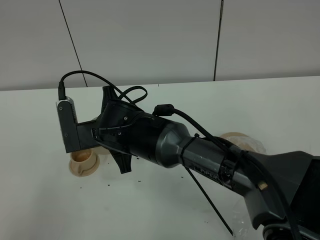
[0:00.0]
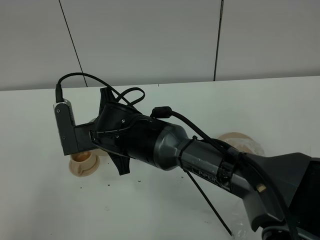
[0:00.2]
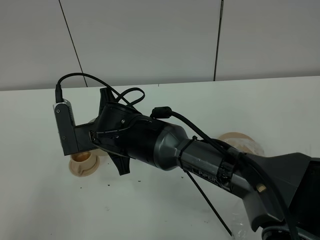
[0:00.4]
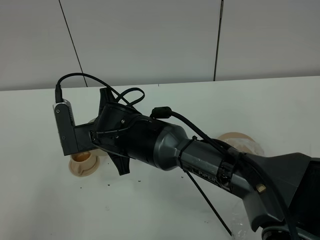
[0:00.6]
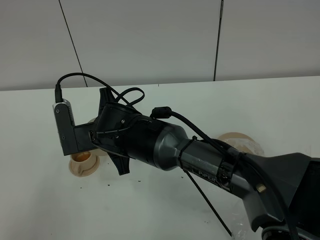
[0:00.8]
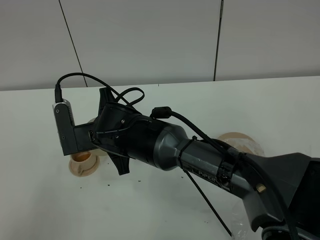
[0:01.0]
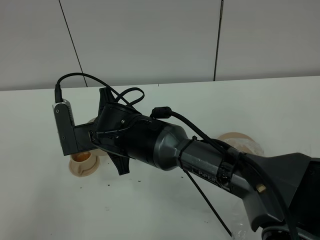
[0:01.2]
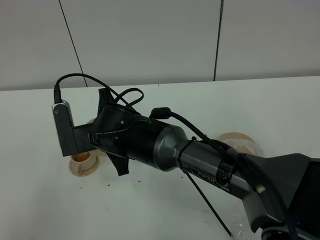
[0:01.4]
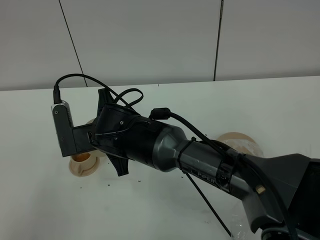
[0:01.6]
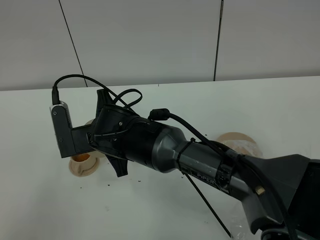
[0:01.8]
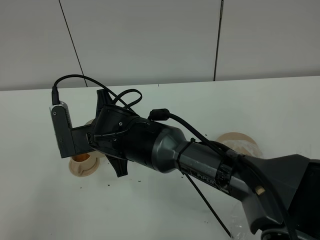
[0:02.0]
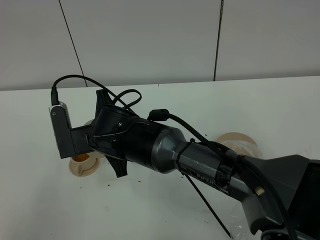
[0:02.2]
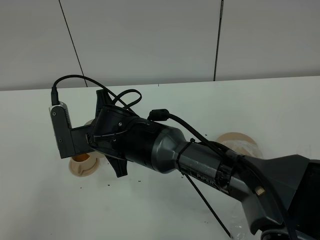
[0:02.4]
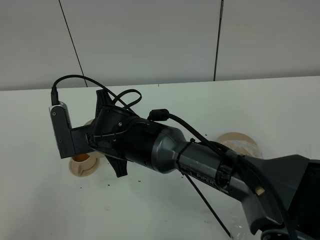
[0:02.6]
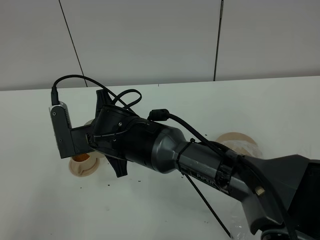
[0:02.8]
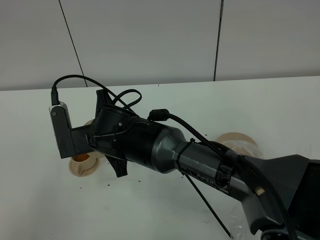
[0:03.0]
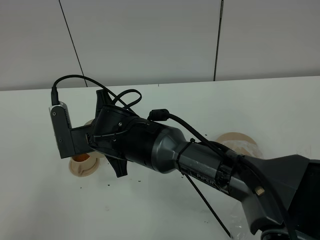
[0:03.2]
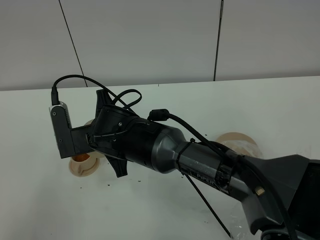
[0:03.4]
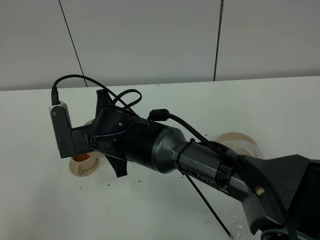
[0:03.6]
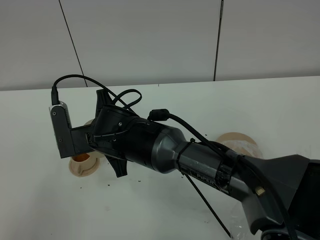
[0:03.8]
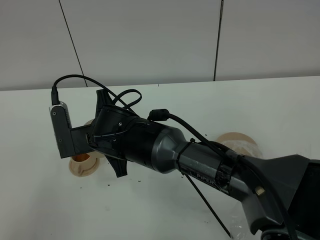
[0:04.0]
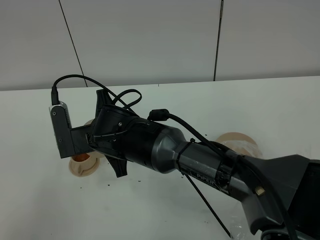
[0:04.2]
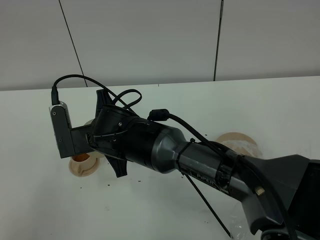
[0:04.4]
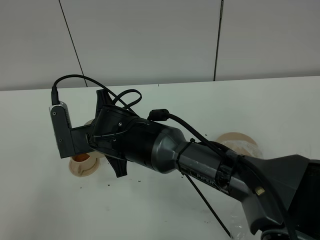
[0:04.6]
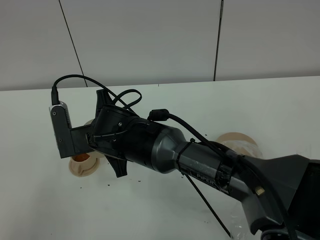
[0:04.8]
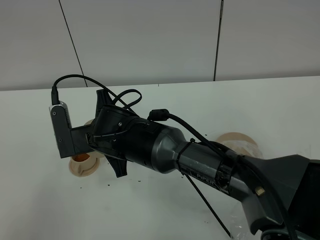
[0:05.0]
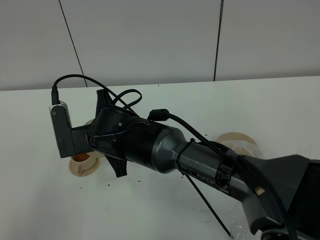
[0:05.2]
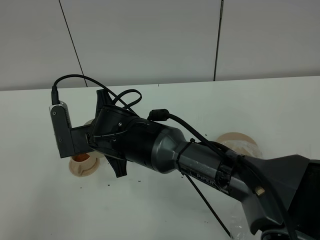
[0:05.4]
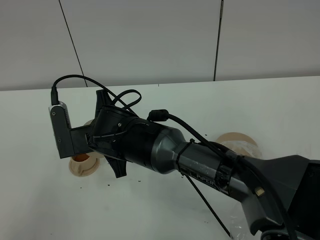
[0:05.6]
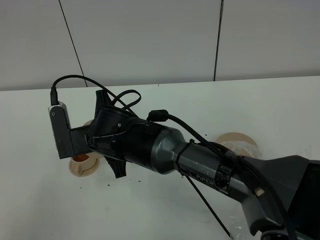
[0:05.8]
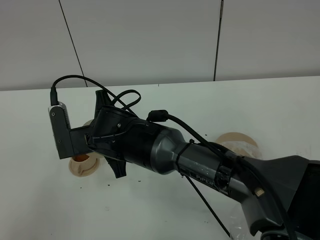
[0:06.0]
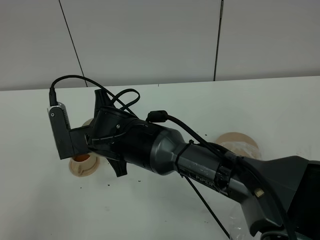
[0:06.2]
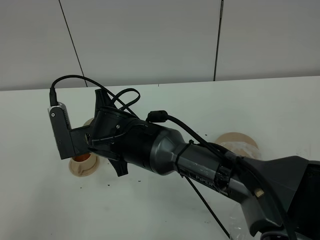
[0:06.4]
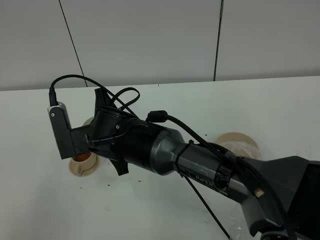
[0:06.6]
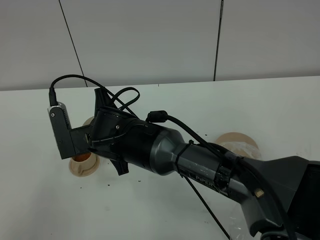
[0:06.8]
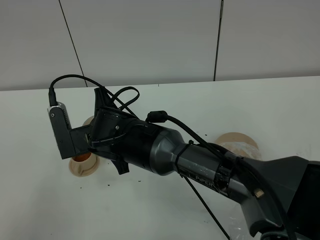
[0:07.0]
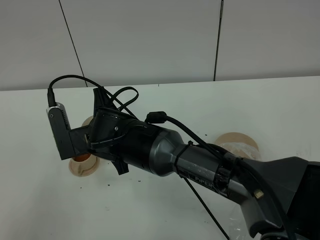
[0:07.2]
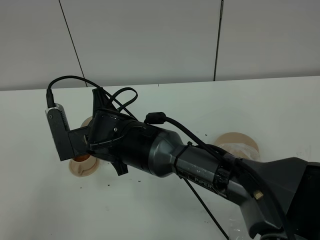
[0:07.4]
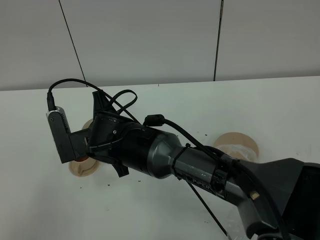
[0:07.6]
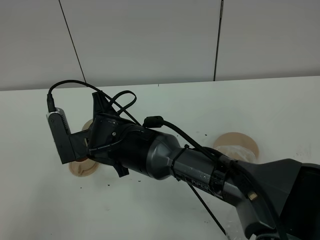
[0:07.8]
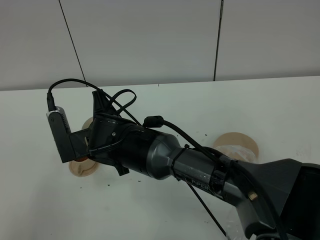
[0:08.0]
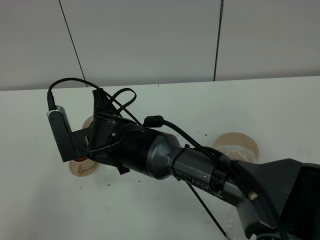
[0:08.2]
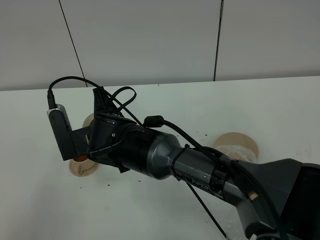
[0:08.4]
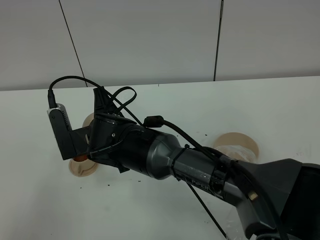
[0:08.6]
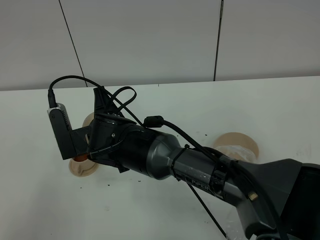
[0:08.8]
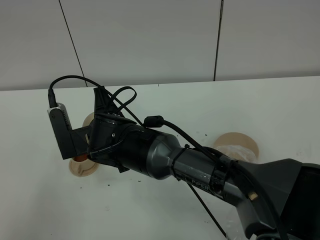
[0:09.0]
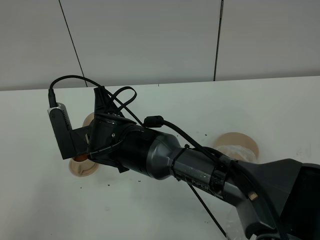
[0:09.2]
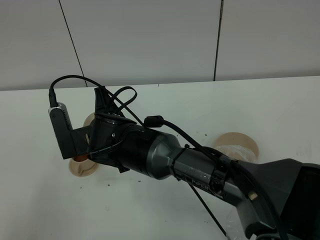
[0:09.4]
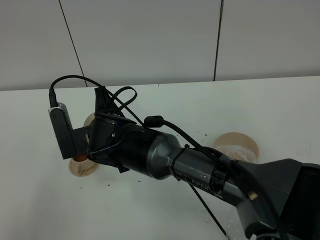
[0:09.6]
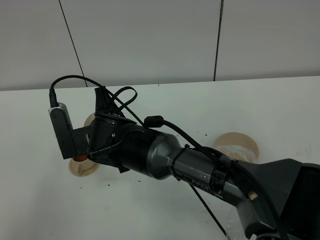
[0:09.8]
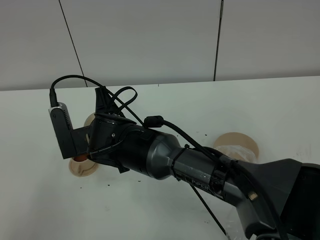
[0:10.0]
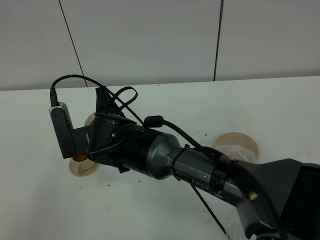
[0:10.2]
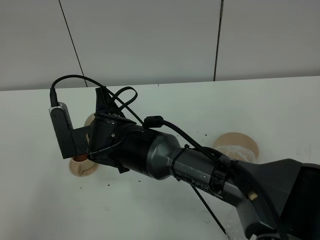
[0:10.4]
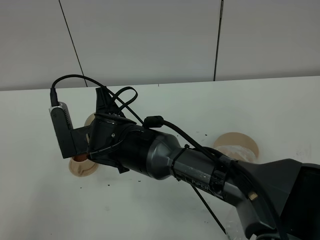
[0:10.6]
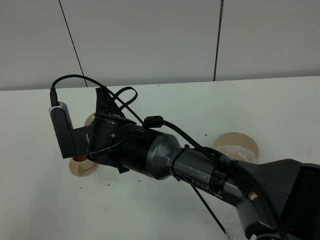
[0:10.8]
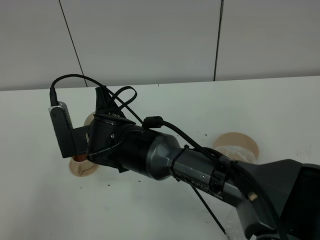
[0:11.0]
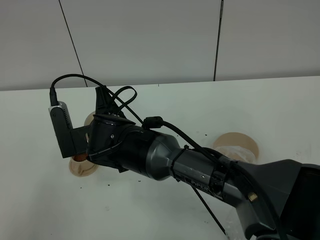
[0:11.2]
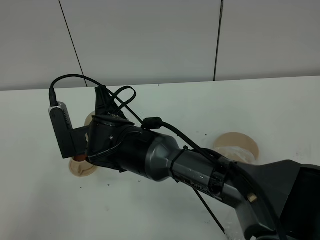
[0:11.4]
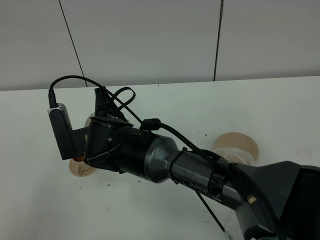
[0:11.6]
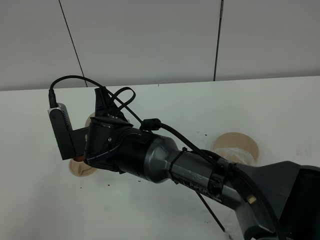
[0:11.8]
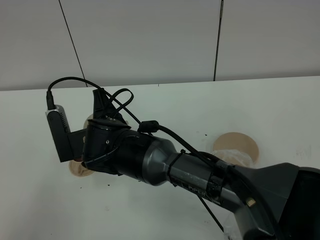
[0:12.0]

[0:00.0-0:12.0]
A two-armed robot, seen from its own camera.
Task of the whole recording: grasp the brown teapot and pour the tea into the two brown teacups one by one, put the brown teapot back in its original place.
0:00.0 to 0:06.0: Neither gripper changes place.
0:06.0 to 0:07.6: Neither gripper changes place.
0:07.6 to 0:10.4: Both grippers stay put.
0:10.4 to 0:12.0: Neither gripper changes place.

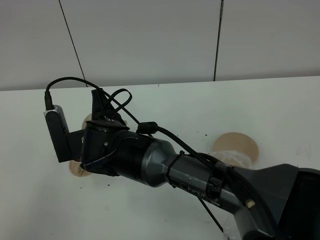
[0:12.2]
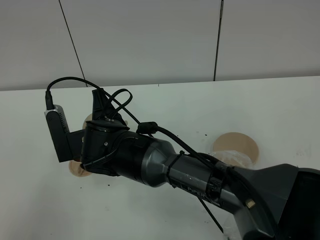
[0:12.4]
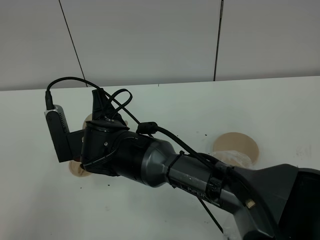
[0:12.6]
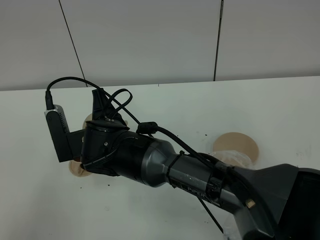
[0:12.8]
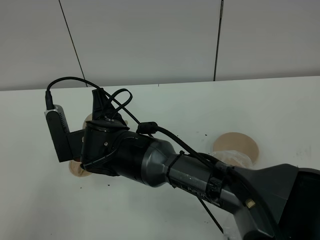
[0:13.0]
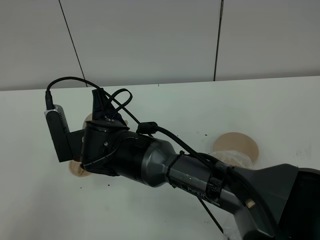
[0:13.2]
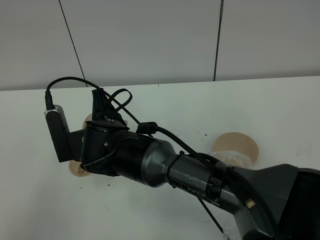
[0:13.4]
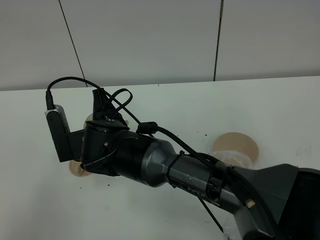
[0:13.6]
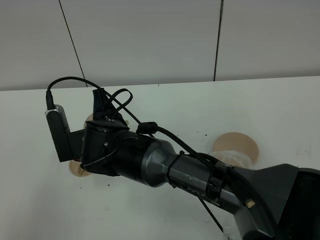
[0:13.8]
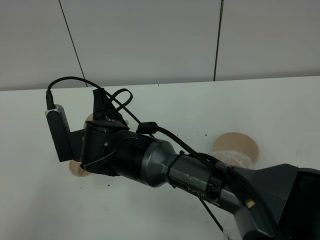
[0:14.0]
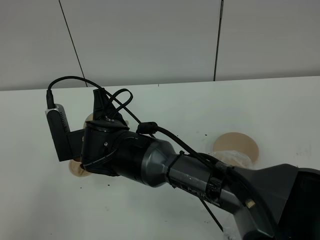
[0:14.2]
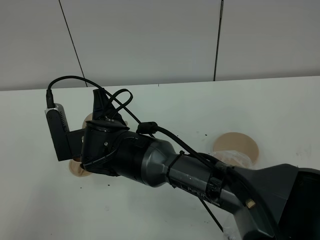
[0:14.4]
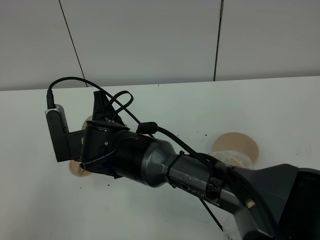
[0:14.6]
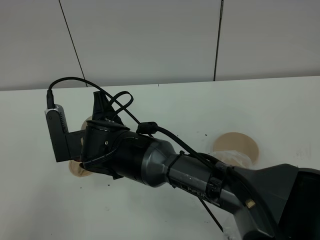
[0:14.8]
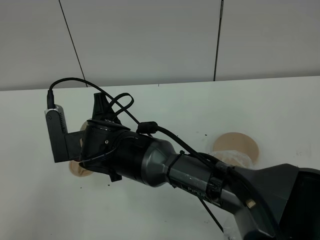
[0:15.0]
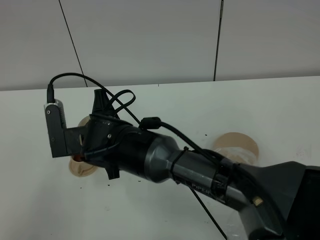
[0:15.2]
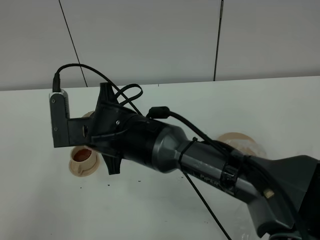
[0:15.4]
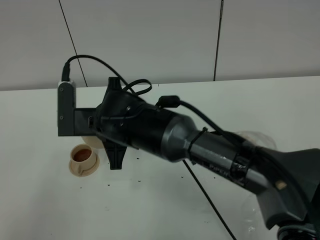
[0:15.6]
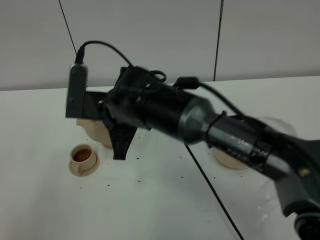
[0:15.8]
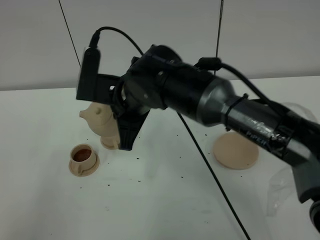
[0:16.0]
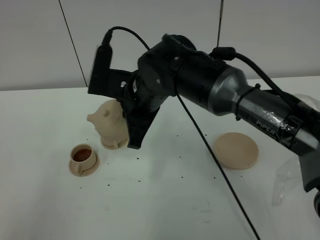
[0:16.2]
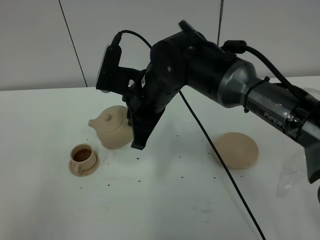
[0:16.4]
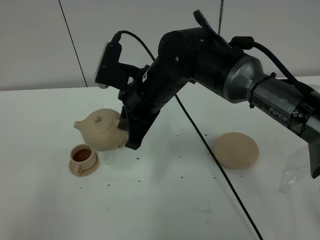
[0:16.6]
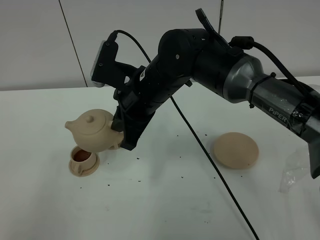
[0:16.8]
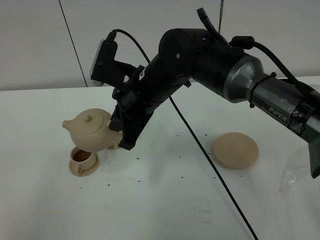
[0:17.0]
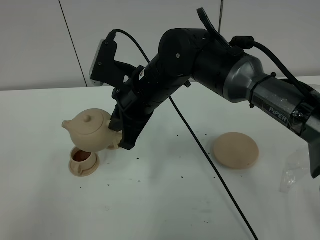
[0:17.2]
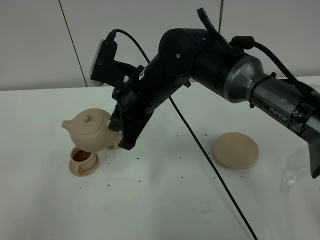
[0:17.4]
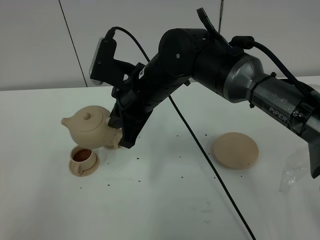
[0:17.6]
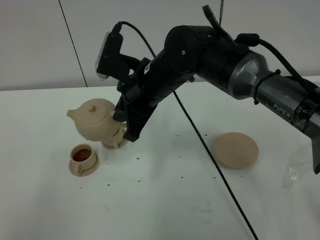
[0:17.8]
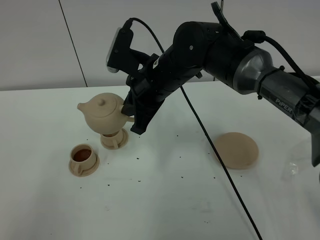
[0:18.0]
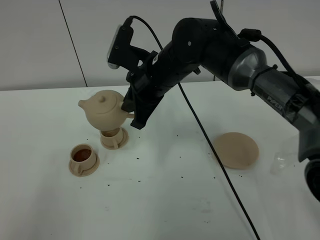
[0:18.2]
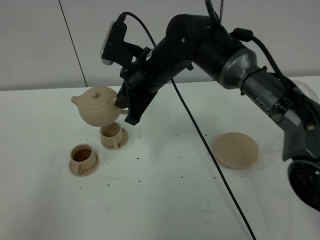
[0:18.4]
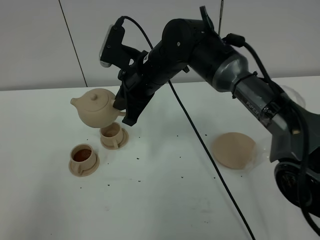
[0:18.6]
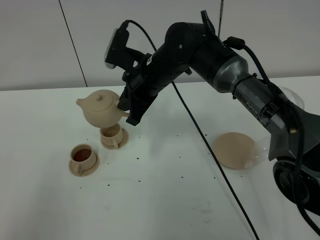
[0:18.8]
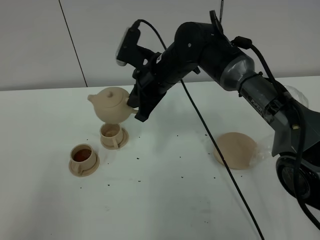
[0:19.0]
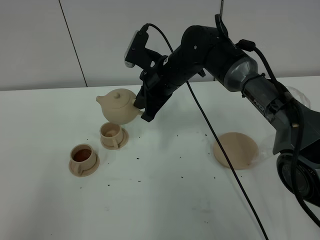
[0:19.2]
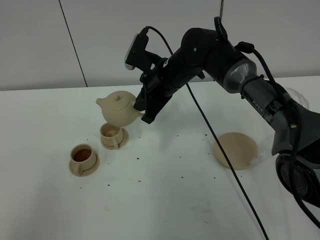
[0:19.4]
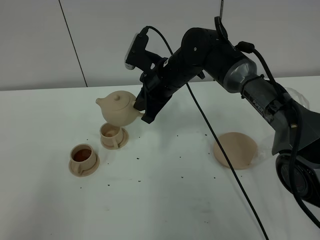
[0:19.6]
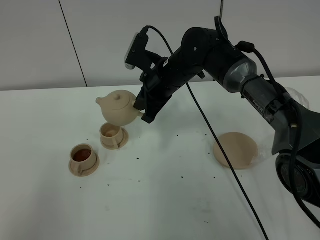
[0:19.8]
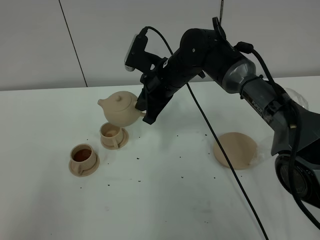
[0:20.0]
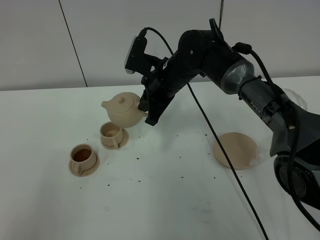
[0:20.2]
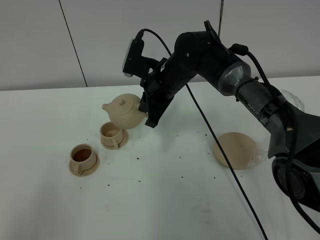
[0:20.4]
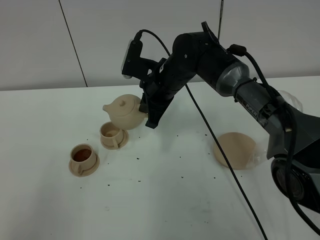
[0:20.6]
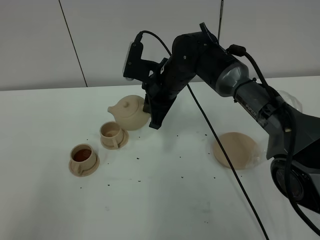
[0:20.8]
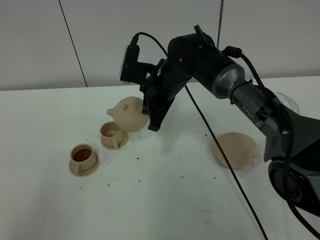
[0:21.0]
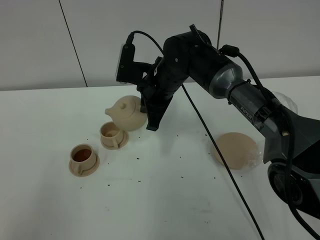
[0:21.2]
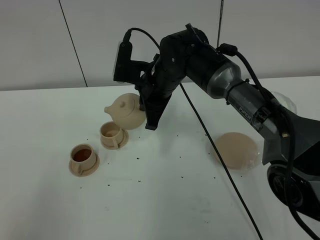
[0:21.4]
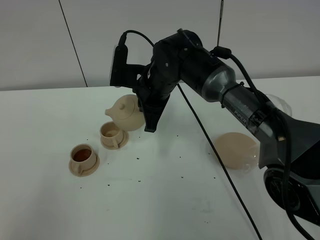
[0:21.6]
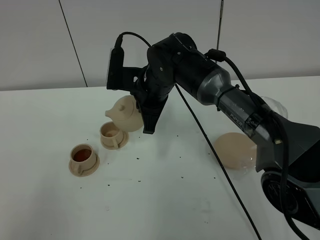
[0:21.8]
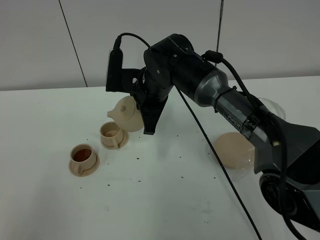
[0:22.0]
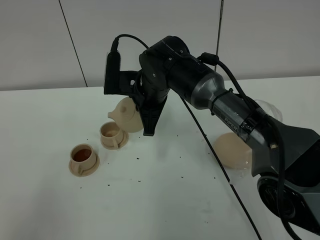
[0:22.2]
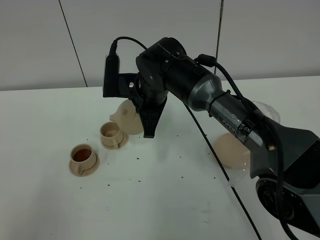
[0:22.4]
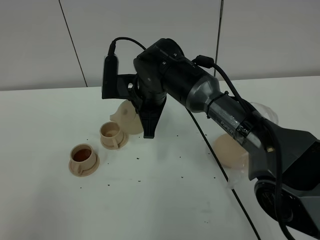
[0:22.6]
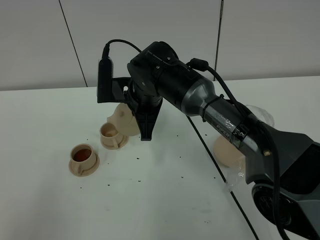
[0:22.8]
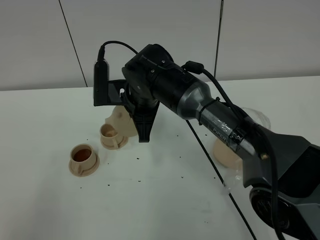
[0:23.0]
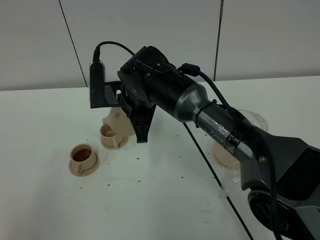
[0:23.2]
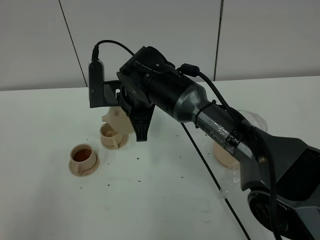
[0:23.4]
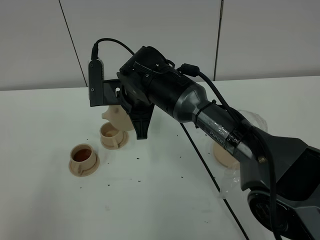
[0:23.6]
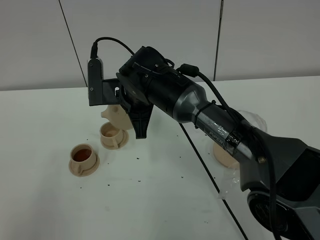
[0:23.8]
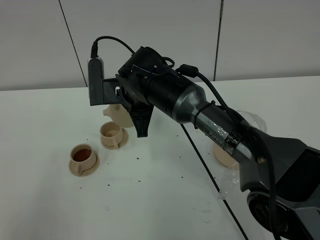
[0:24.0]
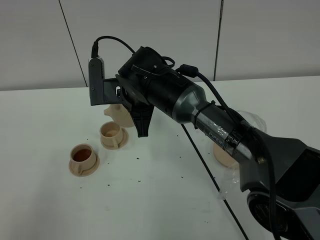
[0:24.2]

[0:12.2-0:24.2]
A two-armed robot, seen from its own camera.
Task of the whole recording: grasp the brown teapot and pour the tea into the two brown teacups one by one, put the brown teapot back in its original place.
0:12.2 to 0:13.8: Both grippers stay about where they are.
0:13.8 to 0:15.2: There are only small adjustments of the grippers.
0:15.2 to 0:16.6: The right gripper goes roughly 10 cm to the right and upward.
0:16.6 to 0:18.2: The grippers make only small movements.
0:18.2 to 0:19.8: The right gripper moves forward and downward, some 10 cm.
0:19.8 to 0:21.2: The grippers stay close to where they were, moving slightly.
0:21.2 to 0:22.6: There are only small adjustments of the grippers.
0:22.6 to 0:24.2: The grippers make only small movements.
